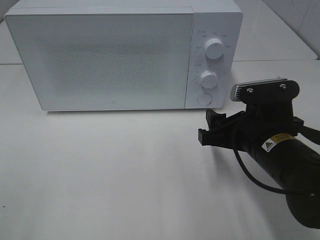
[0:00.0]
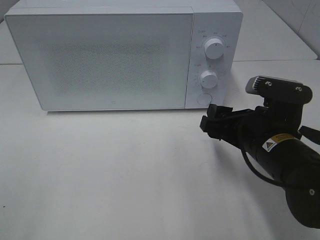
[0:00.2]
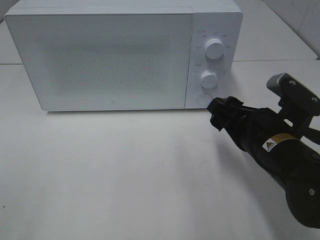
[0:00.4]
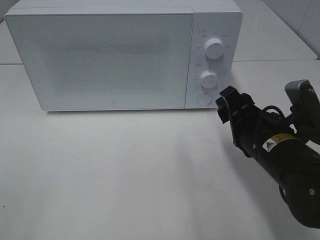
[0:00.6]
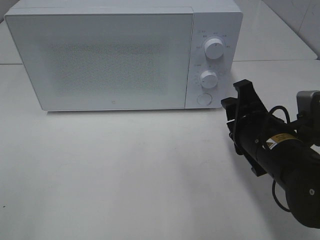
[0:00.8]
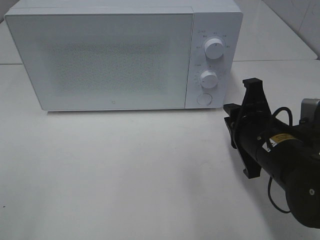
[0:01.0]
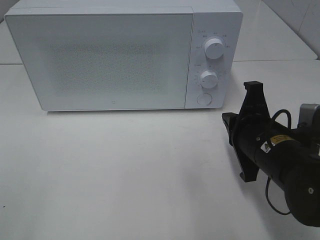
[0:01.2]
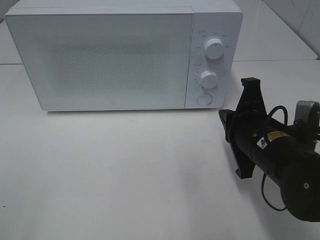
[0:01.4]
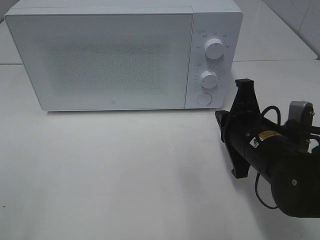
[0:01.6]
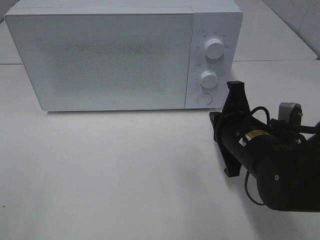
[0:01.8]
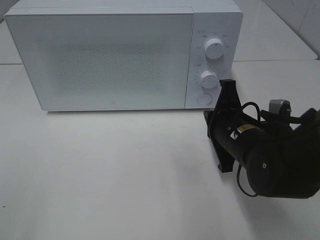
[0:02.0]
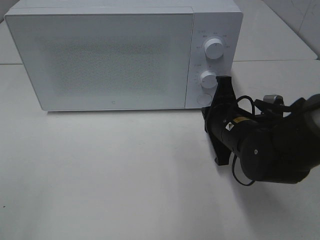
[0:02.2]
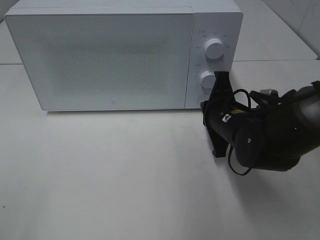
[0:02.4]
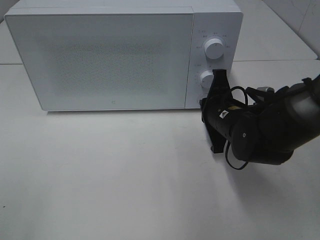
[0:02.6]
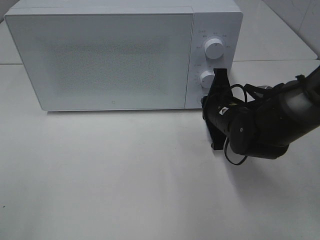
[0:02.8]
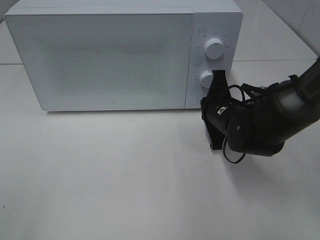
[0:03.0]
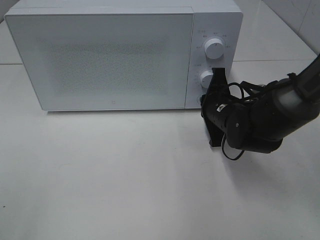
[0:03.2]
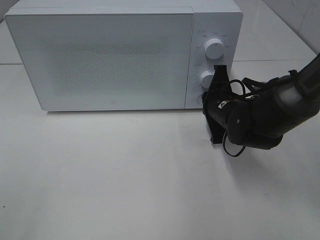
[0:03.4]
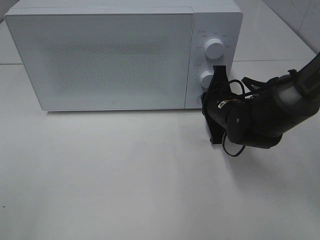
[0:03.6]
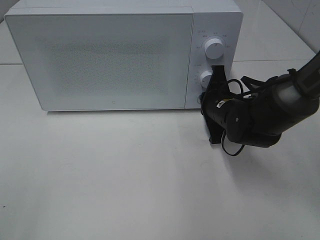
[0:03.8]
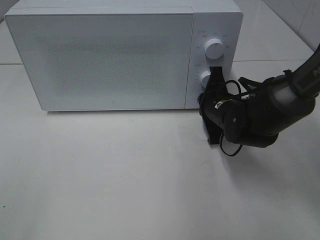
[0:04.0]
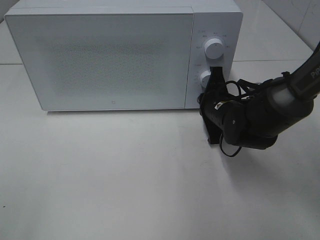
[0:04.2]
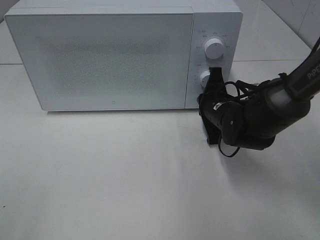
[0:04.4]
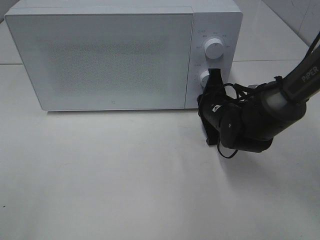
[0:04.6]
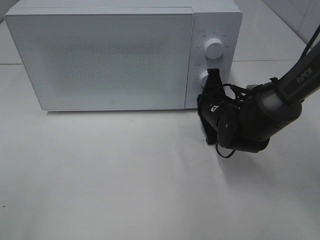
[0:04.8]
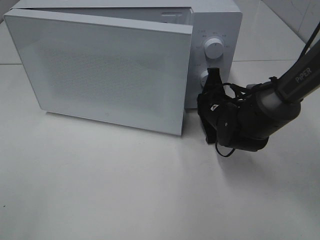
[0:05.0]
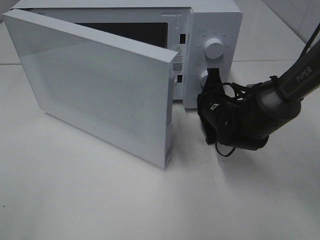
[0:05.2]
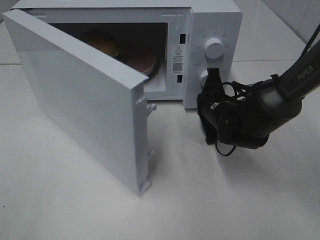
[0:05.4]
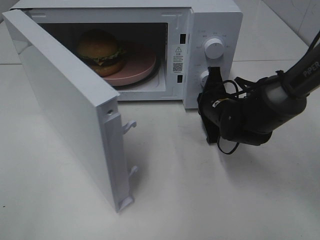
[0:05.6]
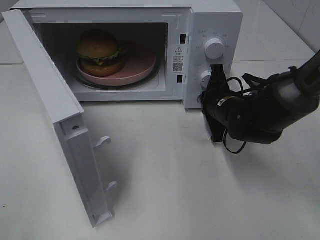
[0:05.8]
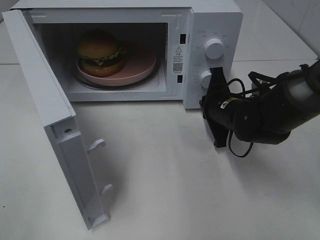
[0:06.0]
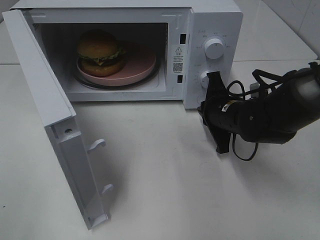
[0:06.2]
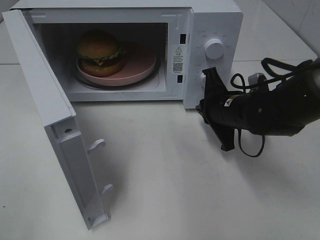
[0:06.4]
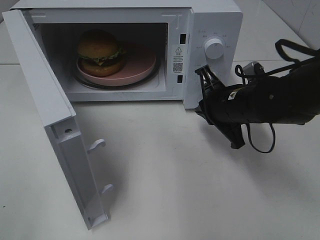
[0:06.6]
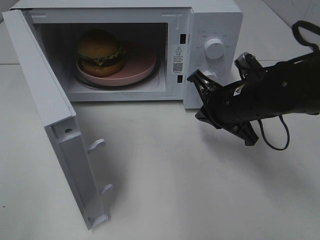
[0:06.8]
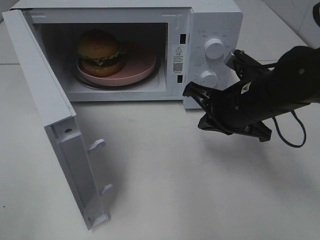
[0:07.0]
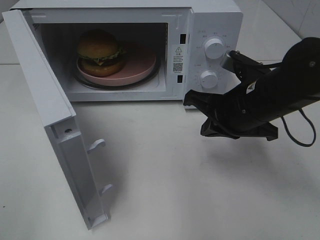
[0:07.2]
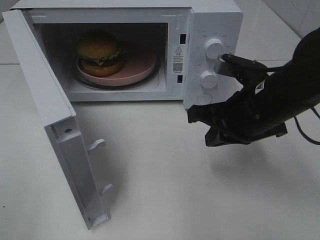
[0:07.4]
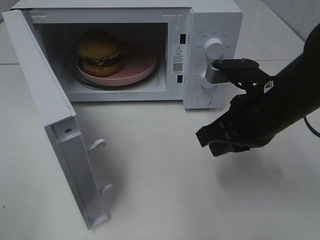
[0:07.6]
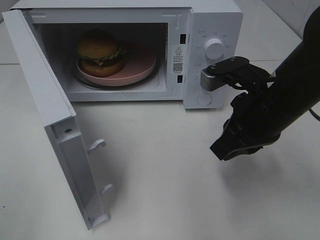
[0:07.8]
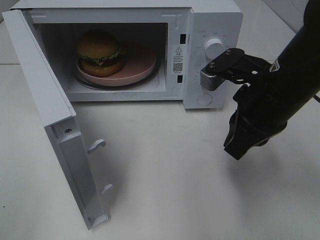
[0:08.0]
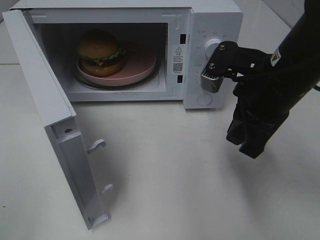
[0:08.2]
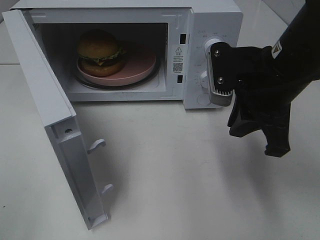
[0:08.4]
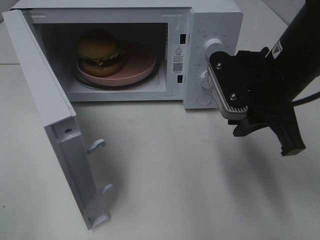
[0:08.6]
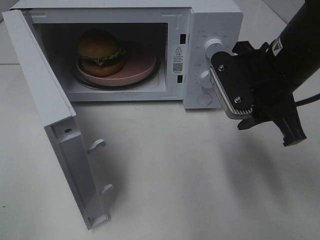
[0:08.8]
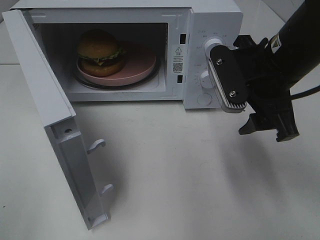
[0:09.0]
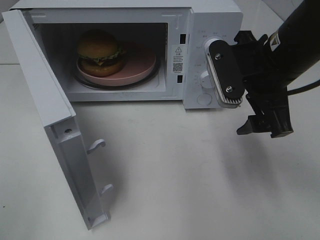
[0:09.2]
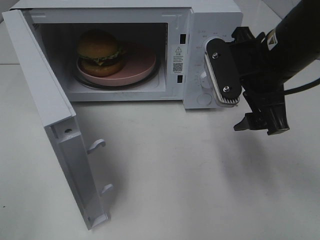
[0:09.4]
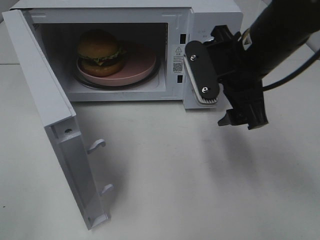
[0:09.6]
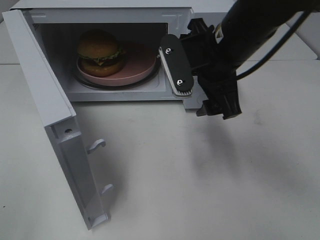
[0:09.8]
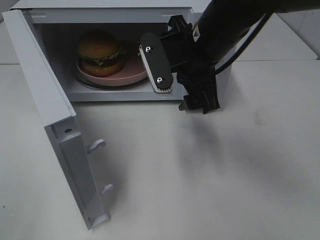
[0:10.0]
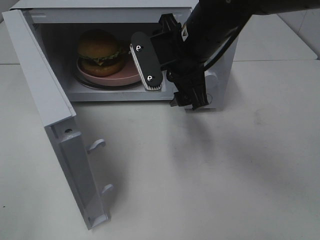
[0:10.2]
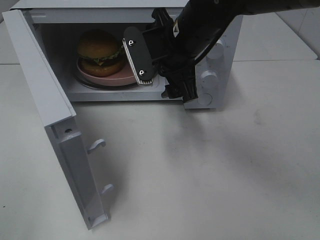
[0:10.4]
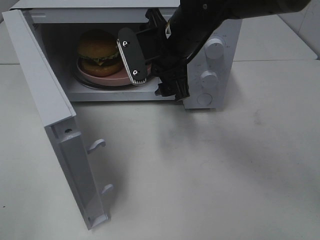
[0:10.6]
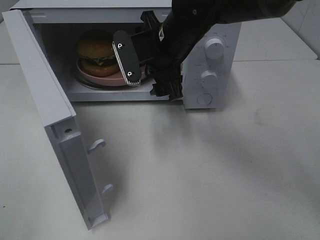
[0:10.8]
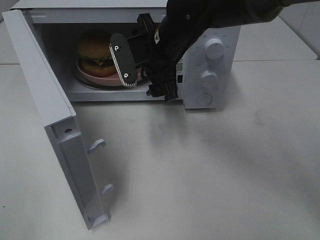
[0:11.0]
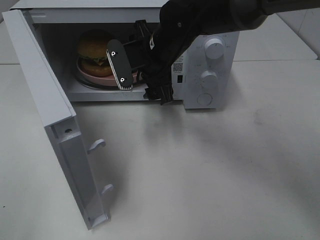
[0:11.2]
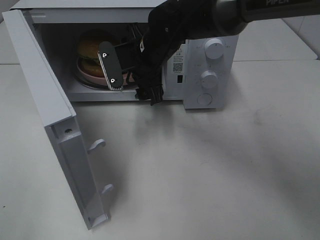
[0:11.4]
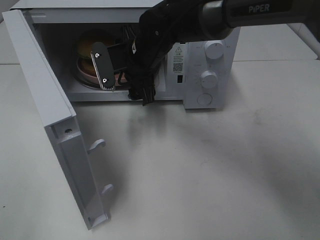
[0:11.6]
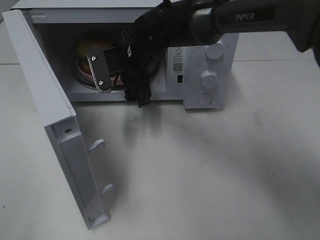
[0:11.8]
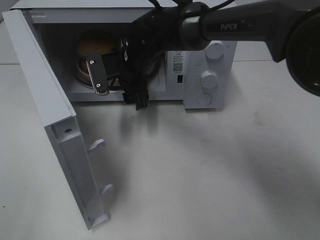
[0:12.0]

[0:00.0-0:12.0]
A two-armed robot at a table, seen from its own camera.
Task of the whole recording: Heat the burger.
Step, 0:00.0 to 0:06.2: Right hand: press the switch.
0:00.0 to 0:01.6: The right gripper closes up.
0:01.6 to 0:03.0: The right gripper shifts some 10 cm forward.
0:03.0 to 0:04.4: The grippers move only a little.
0:06.0 to 0:07.6: The right gripper heads upward and backward, covering roughly 15 cm.
0:07.6 to 0:09.0: The right gripper changes place by some 5 cm, and opens up.
0:09.0 to 0:10.4: The right gripper shifts roughly 15 cm to the left and forward.
0:10.4 to 0:12.0: The right gripper travels to the left, downward and forward by approximately 15 cm.

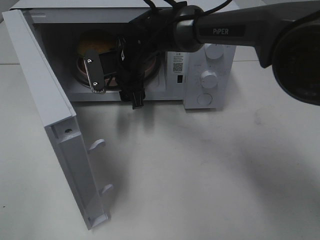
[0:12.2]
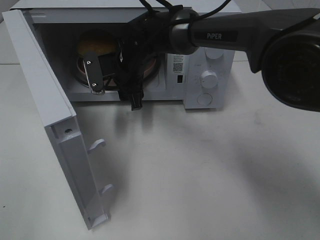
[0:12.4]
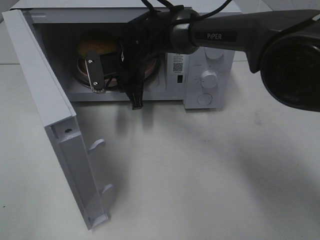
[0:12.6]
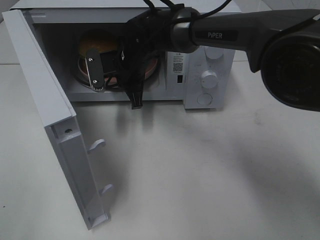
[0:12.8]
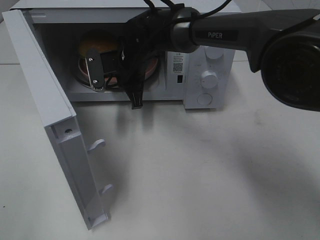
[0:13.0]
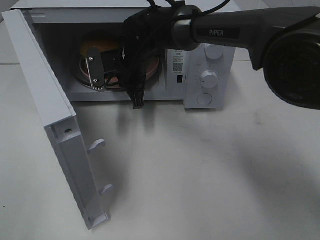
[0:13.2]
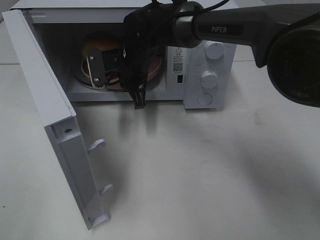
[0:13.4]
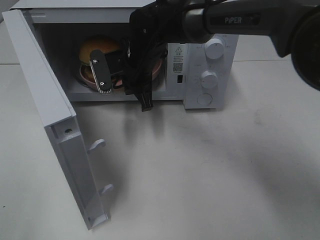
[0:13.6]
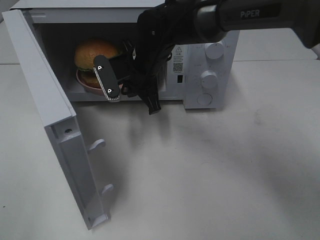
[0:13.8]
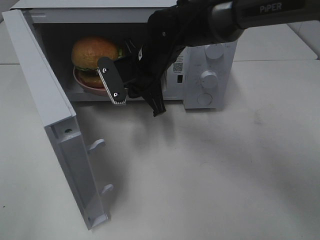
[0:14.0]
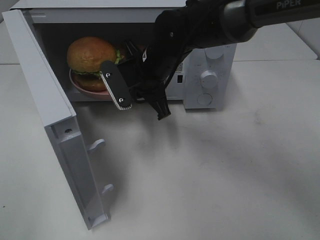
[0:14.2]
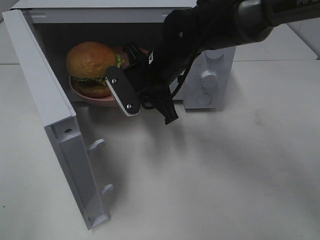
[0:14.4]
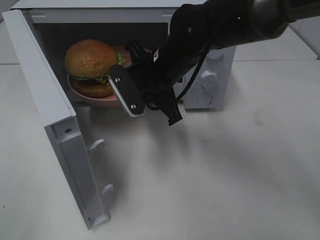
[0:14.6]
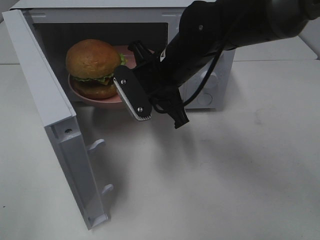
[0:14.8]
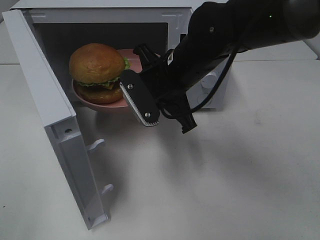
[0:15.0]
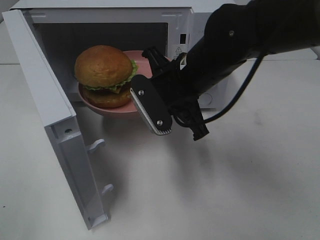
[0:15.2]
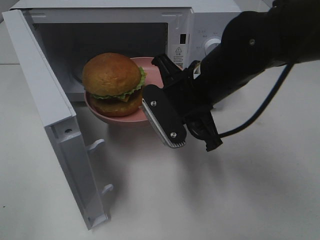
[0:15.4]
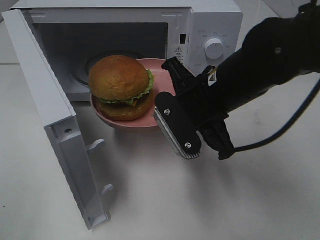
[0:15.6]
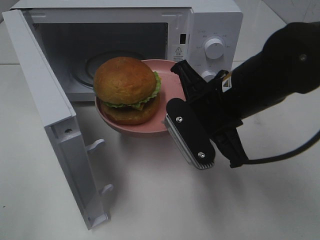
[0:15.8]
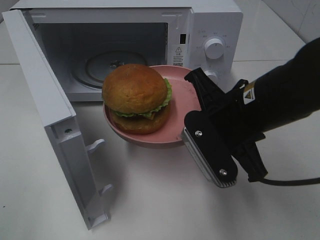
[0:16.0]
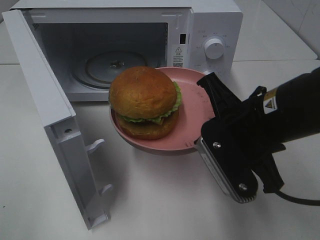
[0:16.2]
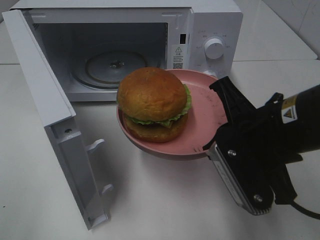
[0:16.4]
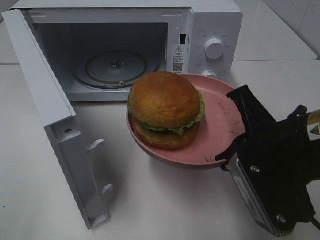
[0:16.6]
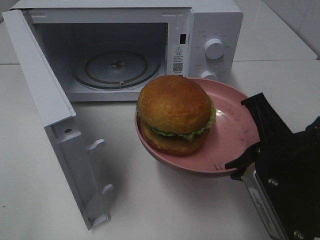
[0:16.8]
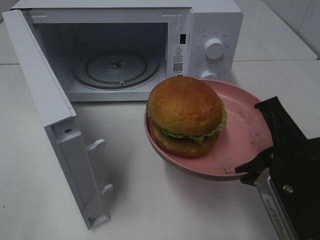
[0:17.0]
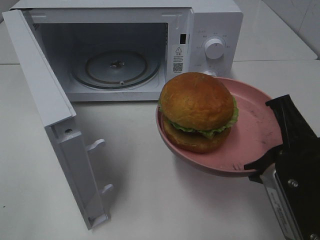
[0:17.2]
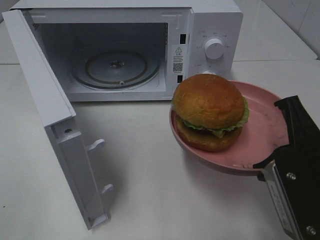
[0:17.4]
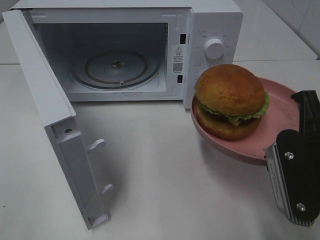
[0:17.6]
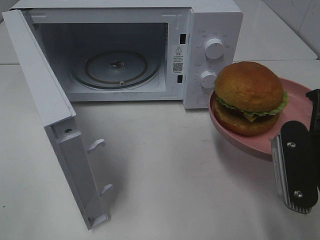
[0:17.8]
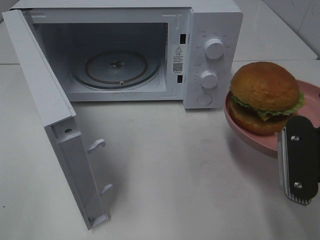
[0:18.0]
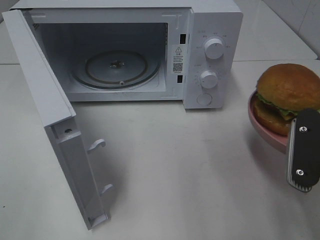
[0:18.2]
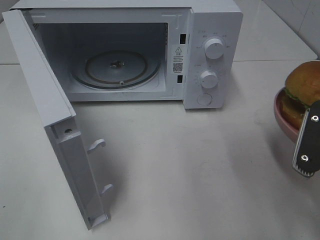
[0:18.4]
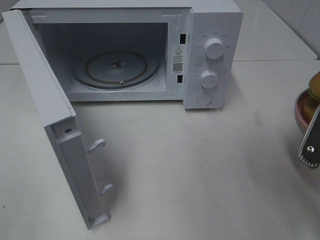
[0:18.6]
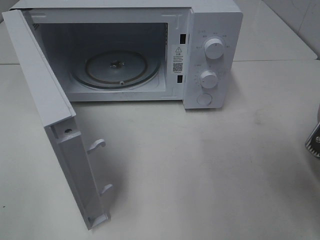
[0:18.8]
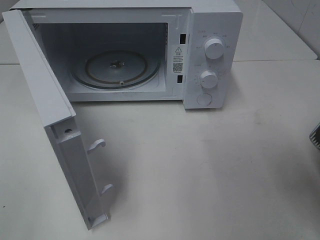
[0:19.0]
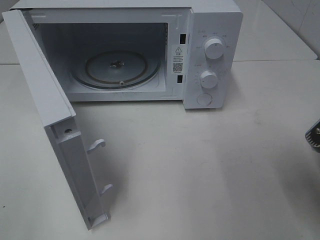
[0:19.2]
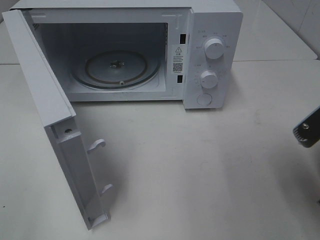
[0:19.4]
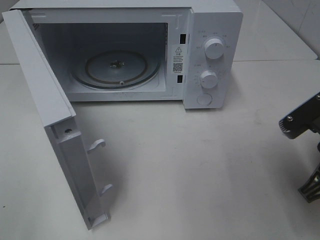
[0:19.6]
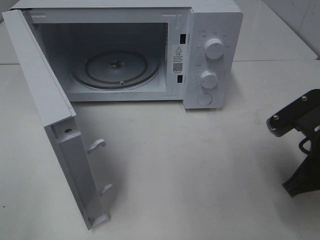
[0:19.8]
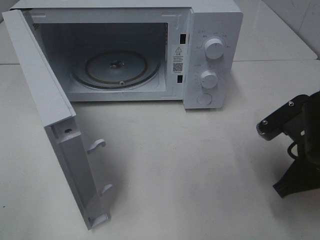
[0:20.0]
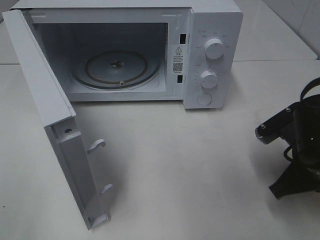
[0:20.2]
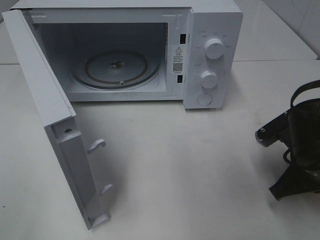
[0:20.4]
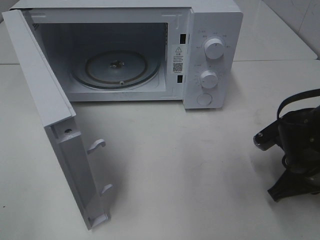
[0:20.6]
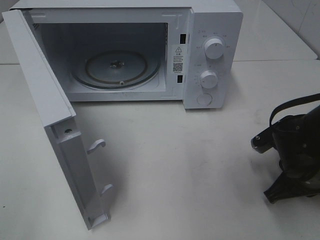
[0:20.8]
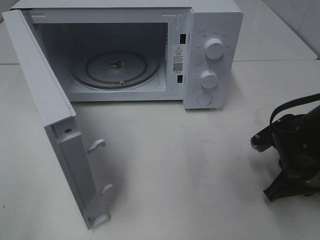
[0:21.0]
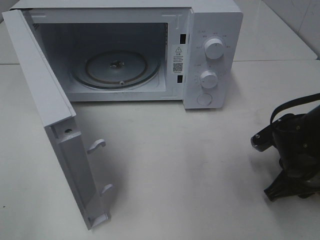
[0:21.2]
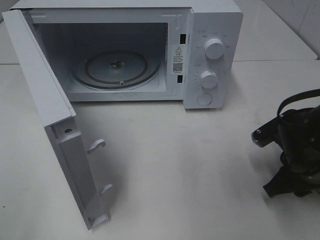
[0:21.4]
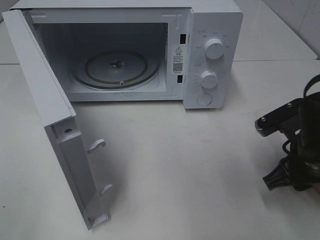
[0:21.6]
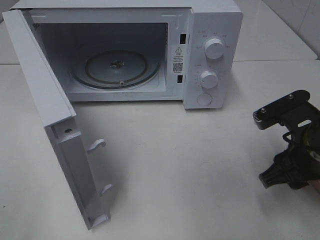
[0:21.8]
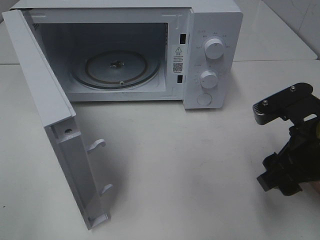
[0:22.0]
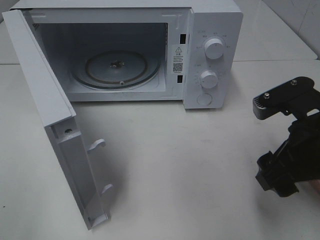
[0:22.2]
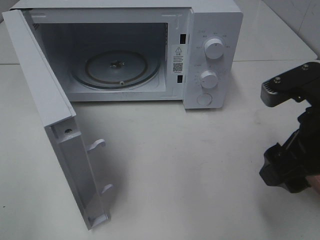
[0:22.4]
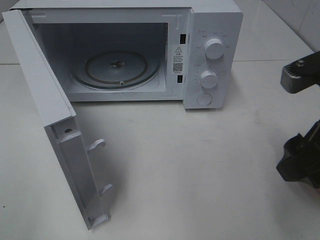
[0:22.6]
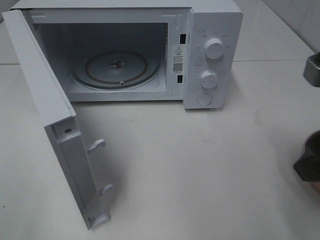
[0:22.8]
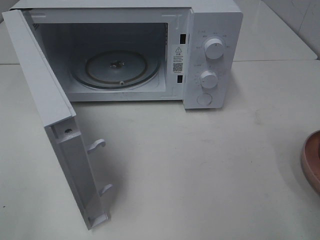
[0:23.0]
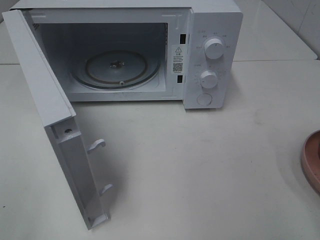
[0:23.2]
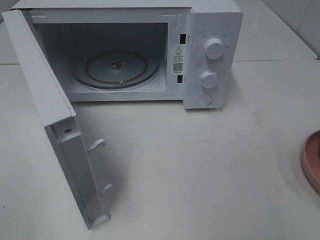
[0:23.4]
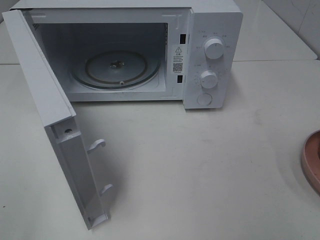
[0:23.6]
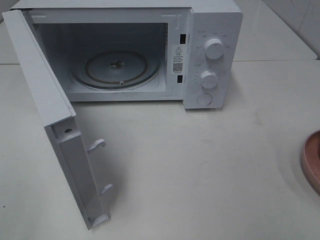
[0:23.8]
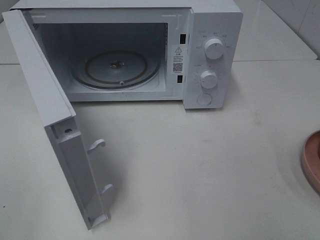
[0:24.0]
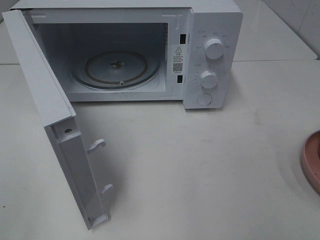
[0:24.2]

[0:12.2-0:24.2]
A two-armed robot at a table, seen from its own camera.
Task of the whole recording: Heat the burger.
Step, 0:13.2 to 0:21.4: Right hand: place the plate on the table.
0:12.2 to 0:13.8: The right gripper closes up.
0:13.8 to 0:15.2: The right gripper goes about 10 cm backward and to the right.
0:15.2 to 0:16.6: The right gripper moves backward and to the right, approximately 15 cm.
0:16.6 to 0:18.2: The right gripper is displaced to the right by roughly 5 cm.
0:18.2 to 0:19.8: The right gripper ends up approximately 5 cm from where it was.
0:19.8 to 0:21.2: The right gripper moves downward, some 10 cm, and opens.
0:21.2 to 0:22.6: The right gripper shifts approximately 15 cm upward, and opens its fingers.
0:22.6 to 0:24.2: The right gripper travels backward and to the right by about 15 cm.
